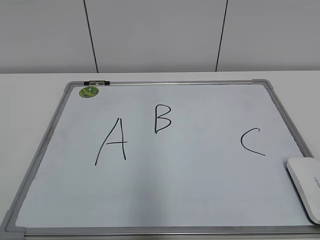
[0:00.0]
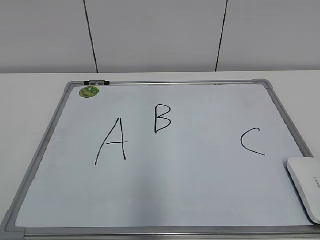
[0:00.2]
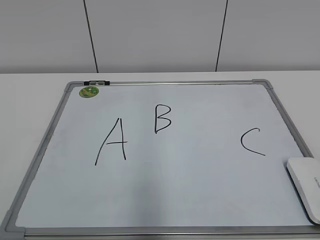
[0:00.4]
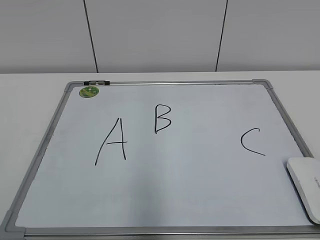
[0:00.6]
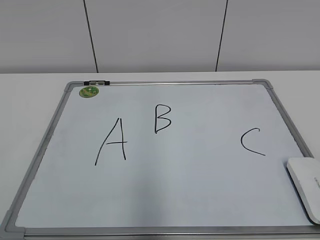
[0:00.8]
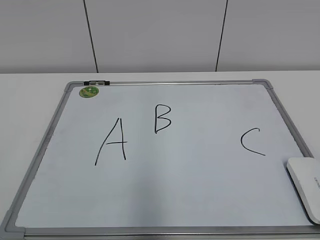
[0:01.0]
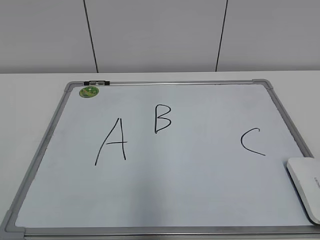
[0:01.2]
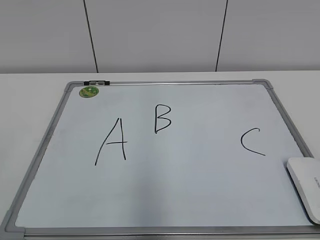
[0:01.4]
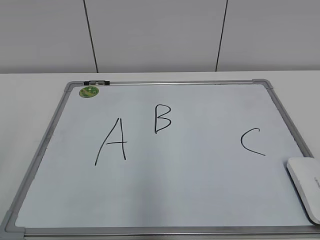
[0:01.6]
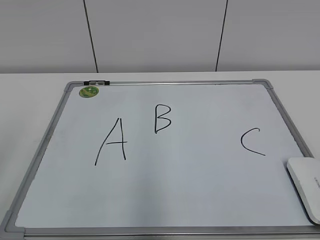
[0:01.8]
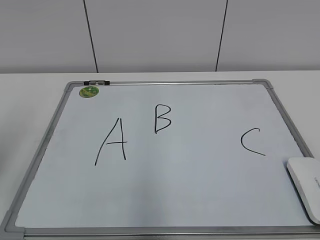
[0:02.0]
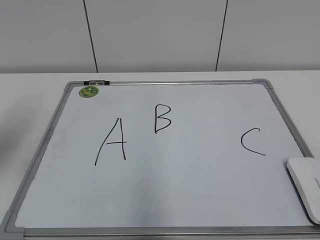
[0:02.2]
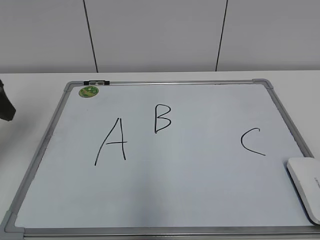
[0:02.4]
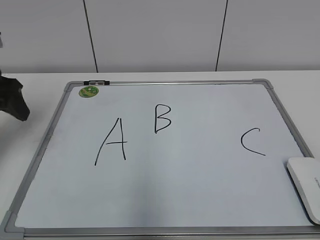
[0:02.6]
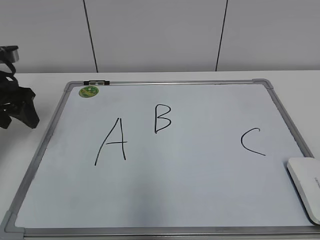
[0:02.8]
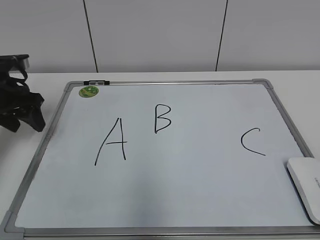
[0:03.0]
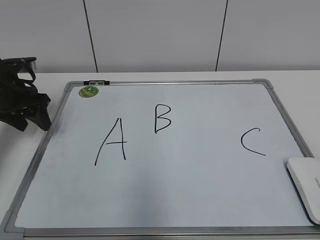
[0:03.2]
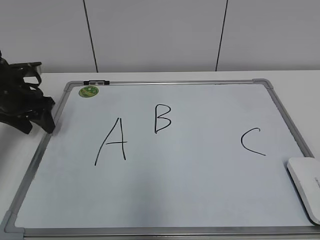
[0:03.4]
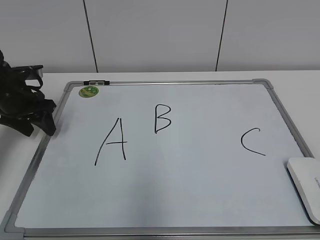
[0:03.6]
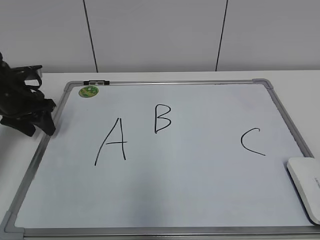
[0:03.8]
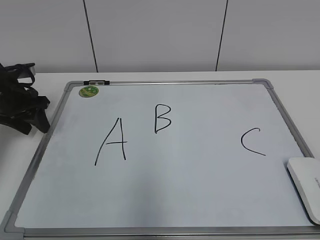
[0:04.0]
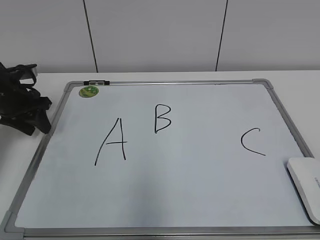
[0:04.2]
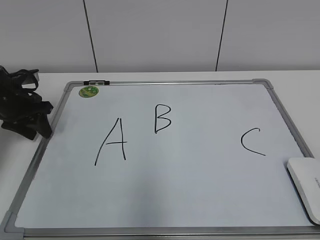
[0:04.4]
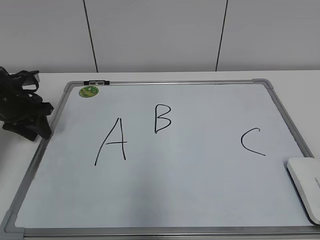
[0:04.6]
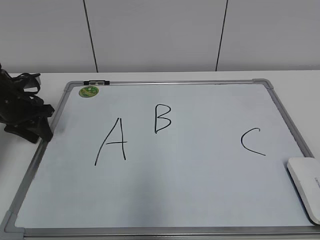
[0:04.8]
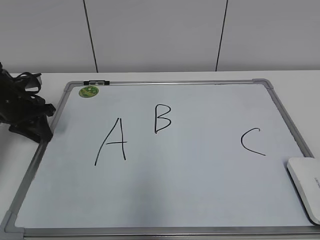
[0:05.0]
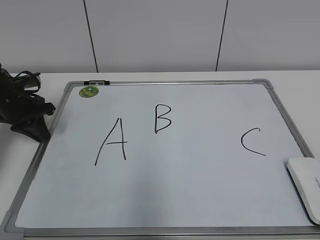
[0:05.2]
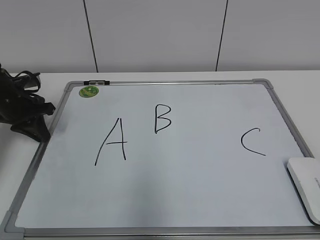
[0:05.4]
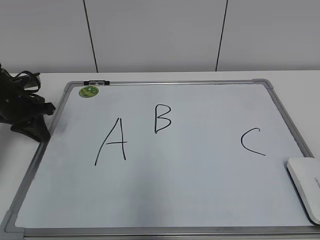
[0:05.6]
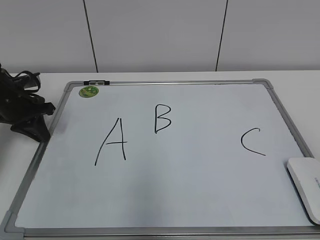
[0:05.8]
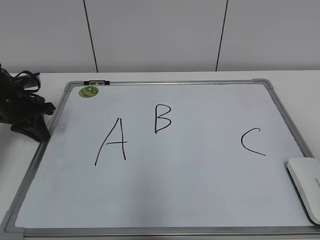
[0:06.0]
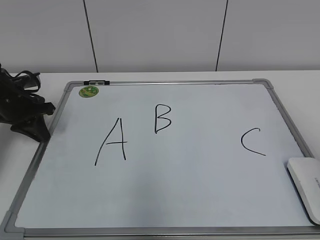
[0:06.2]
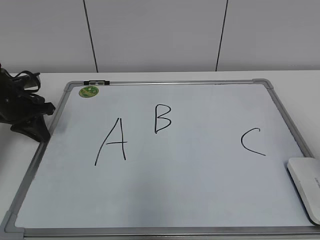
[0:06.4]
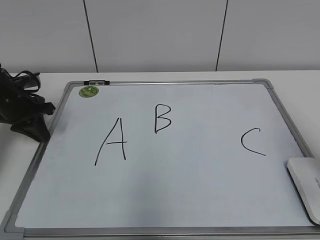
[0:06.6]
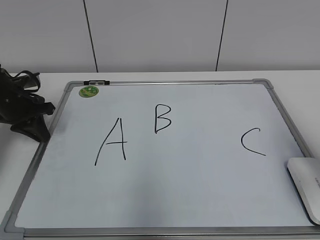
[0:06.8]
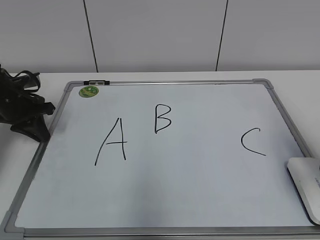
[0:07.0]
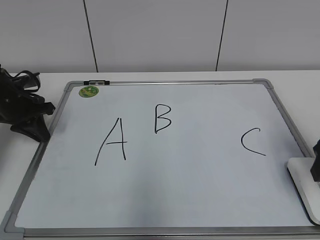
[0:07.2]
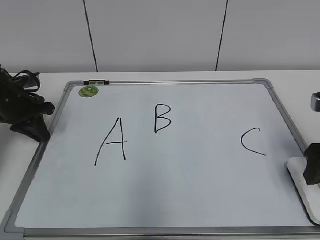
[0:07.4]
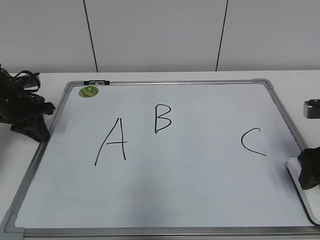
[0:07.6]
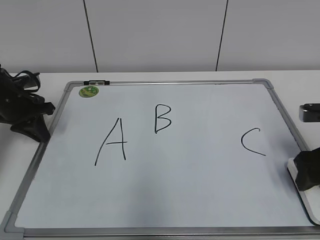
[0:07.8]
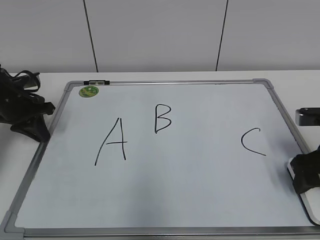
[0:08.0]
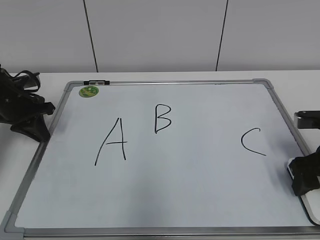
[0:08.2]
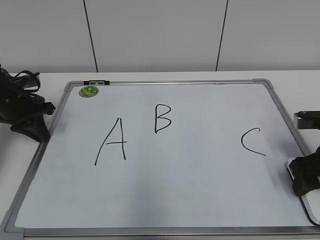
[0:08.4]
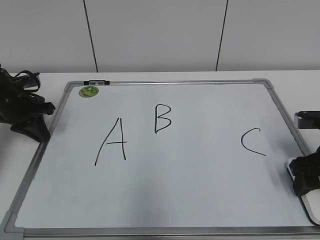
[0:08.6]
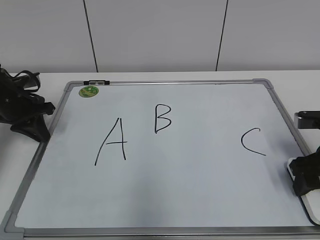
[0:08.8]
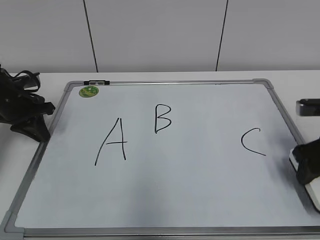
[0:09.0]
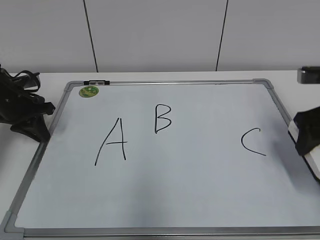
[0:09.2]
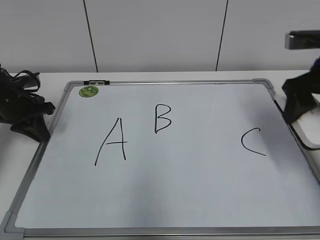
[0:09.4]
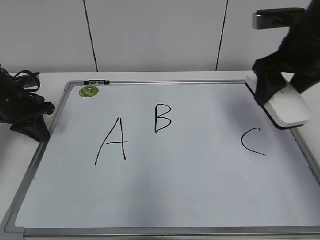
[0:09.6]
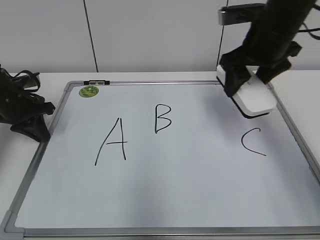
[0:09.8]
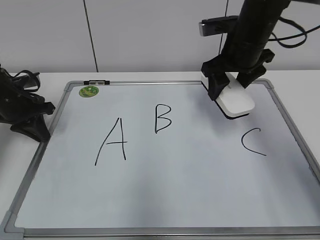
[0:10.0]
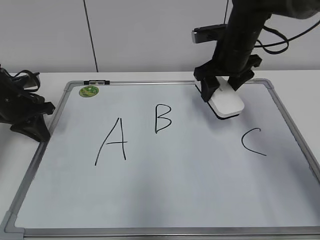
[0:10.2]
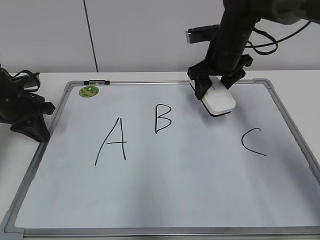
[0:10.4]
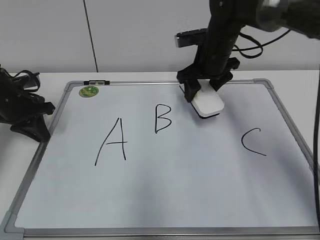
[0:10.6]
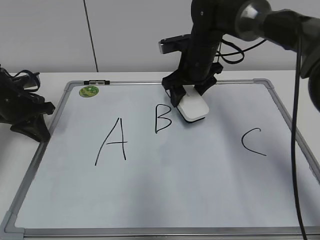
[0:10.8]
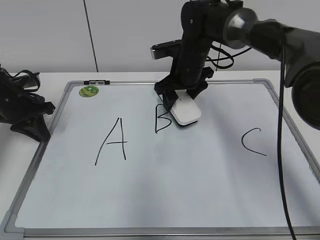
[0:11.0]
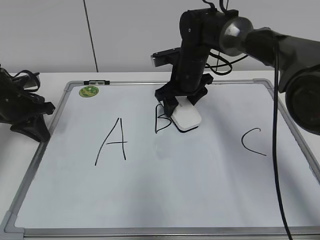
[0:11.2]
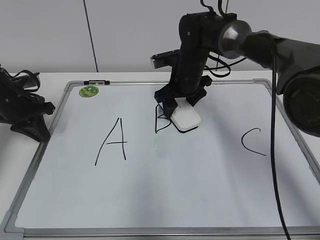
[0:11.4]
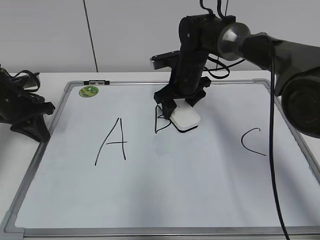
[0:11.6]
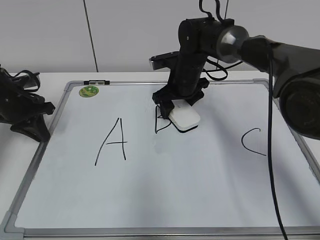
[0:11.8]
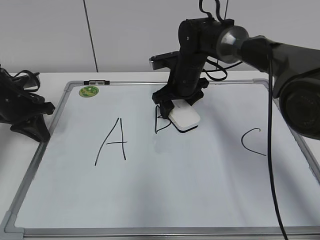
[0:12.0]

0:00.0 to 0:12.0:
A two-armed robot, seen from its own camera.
Task of the whole recording: pick up the eraser on the blackboard and erase the letter "B".
Step, 0:00.0 to 0:05.0: Hold the drawing board steady with your left hand.
0:01.6 to 0:03.0: The left gripper heads forward, covering approximately 30 cm.
0:03.0 to 0:04.4: The left gripper heads downward, covering about 5 cm.
0:04.4 to 0:06.0: The left gripper closes its fingers.
0:06.0 to 0:07.6: The right gripper travels forward and downward by some 25 cm.
0:07.6 to 0:09.0: The grippers move only a little.
0:09.0 to 0:10.4: The right gripper travels forward and to the left by approximately 25 cm.
0:10.4 to 0:12.0: The right gripper goes roughly 10 cm downward and to the left.

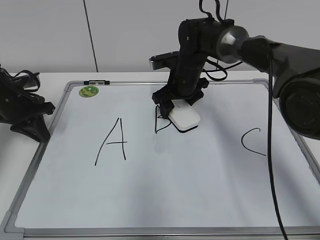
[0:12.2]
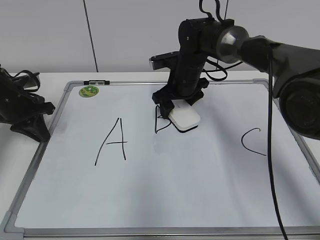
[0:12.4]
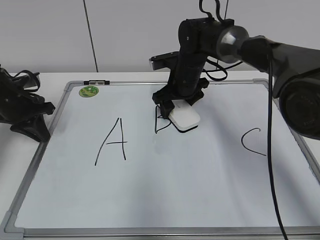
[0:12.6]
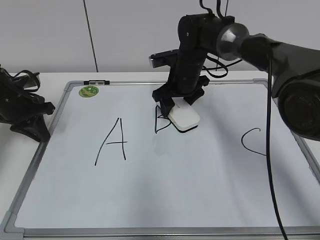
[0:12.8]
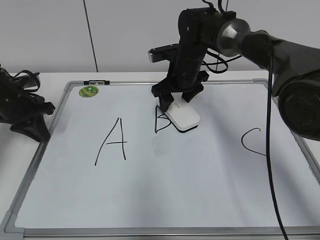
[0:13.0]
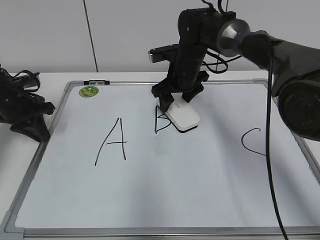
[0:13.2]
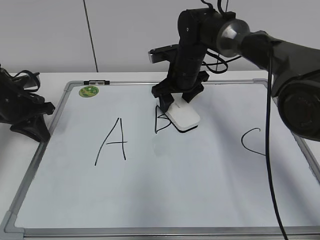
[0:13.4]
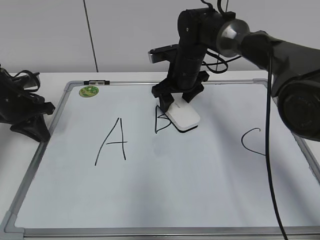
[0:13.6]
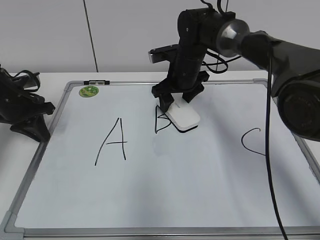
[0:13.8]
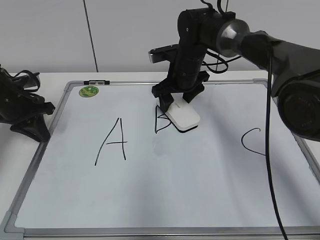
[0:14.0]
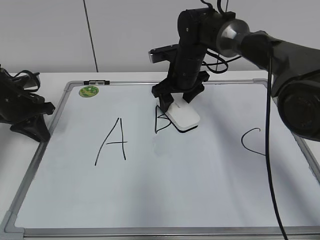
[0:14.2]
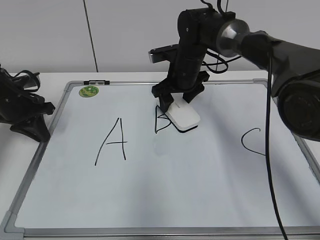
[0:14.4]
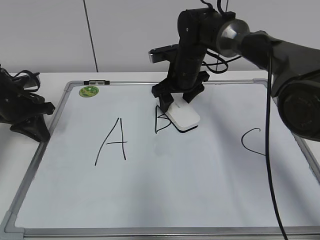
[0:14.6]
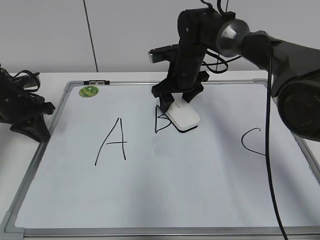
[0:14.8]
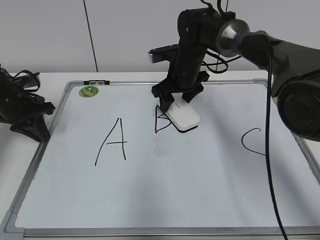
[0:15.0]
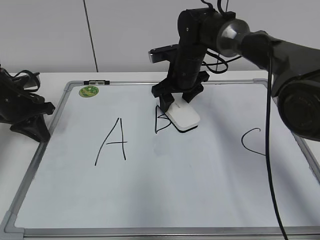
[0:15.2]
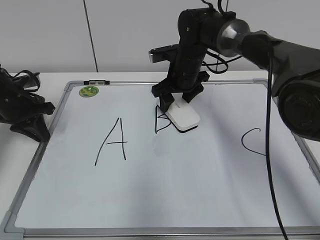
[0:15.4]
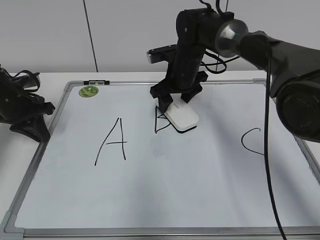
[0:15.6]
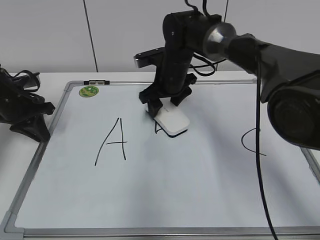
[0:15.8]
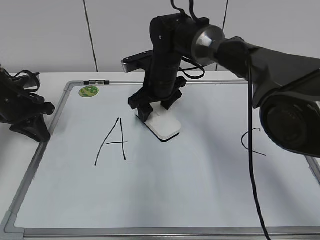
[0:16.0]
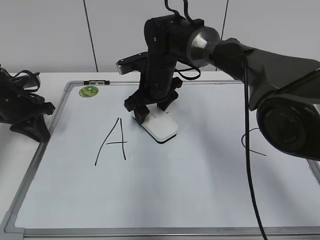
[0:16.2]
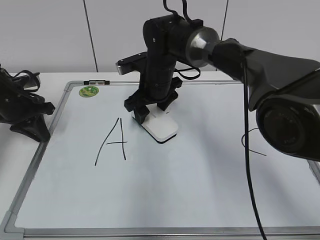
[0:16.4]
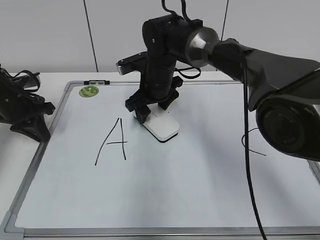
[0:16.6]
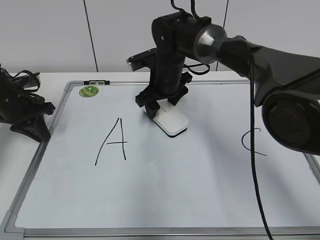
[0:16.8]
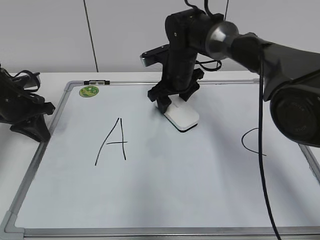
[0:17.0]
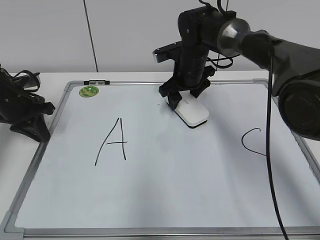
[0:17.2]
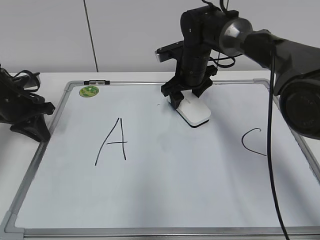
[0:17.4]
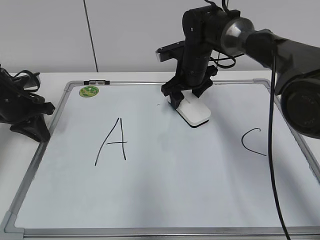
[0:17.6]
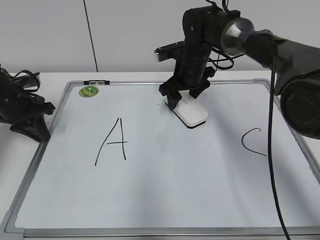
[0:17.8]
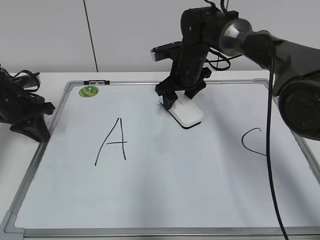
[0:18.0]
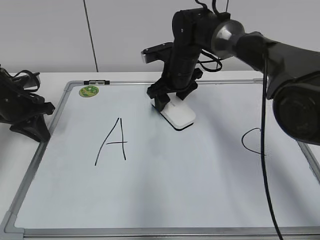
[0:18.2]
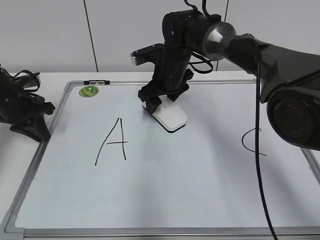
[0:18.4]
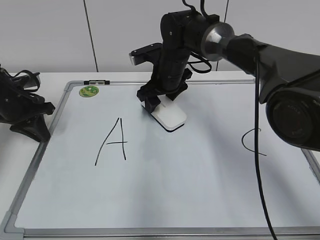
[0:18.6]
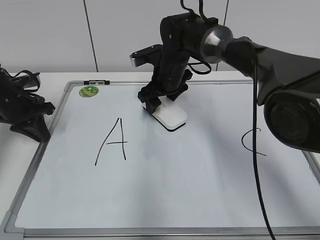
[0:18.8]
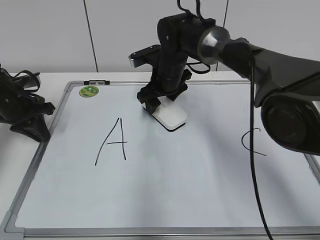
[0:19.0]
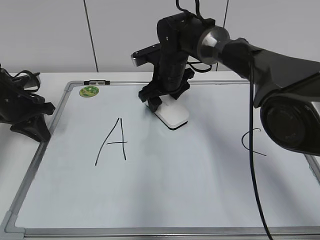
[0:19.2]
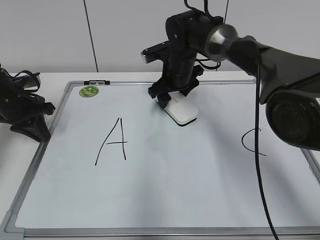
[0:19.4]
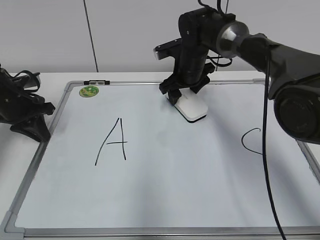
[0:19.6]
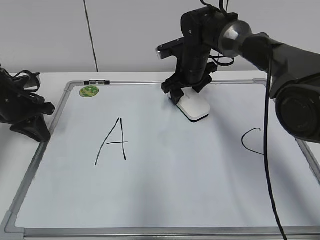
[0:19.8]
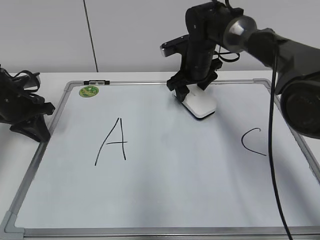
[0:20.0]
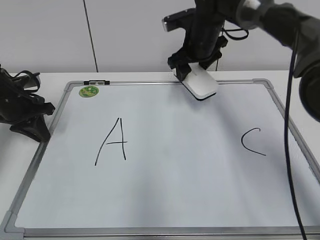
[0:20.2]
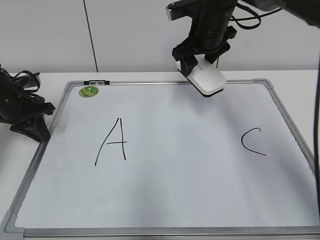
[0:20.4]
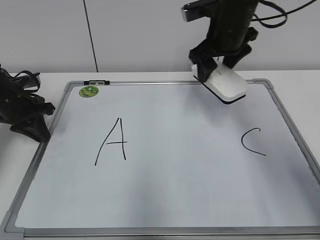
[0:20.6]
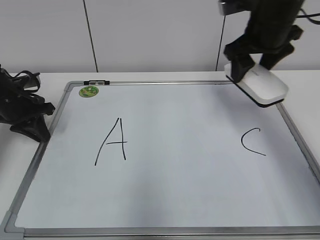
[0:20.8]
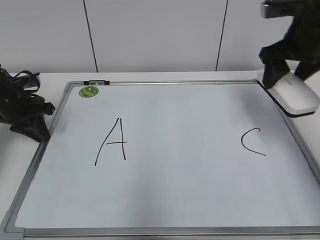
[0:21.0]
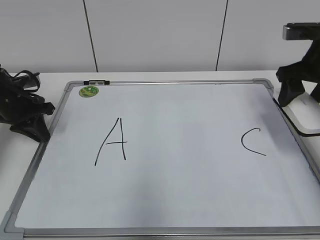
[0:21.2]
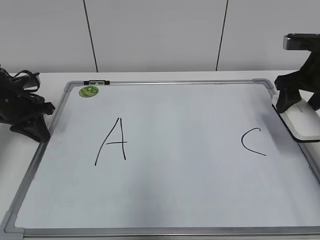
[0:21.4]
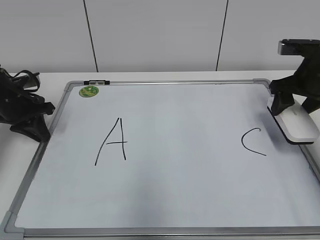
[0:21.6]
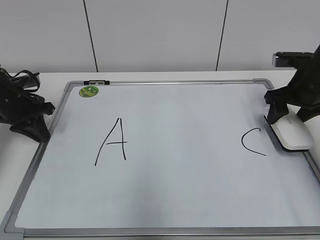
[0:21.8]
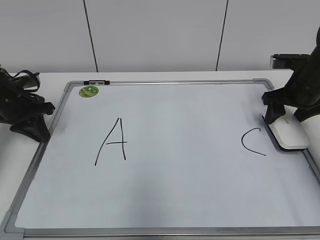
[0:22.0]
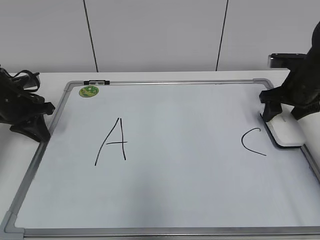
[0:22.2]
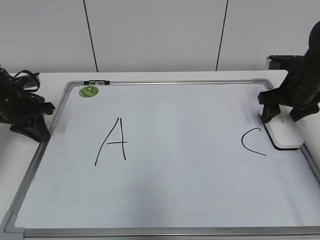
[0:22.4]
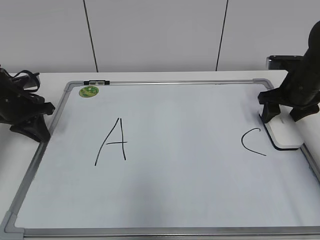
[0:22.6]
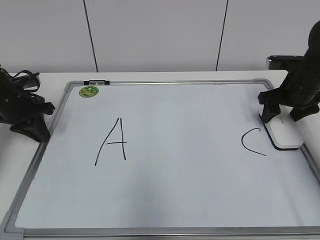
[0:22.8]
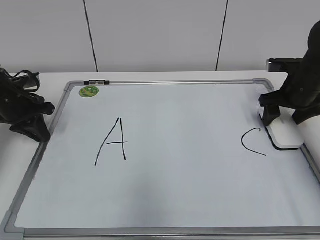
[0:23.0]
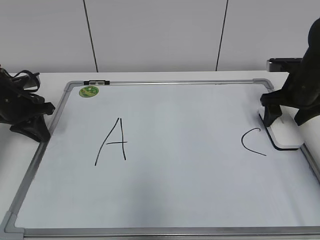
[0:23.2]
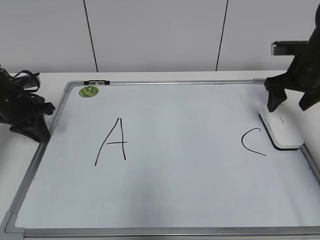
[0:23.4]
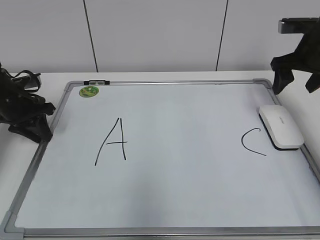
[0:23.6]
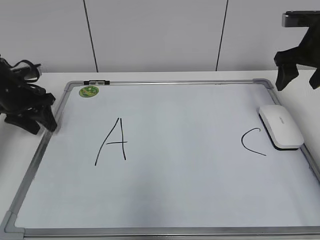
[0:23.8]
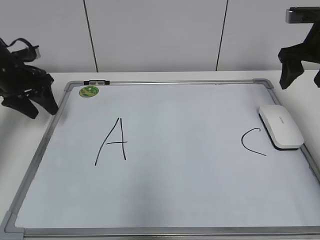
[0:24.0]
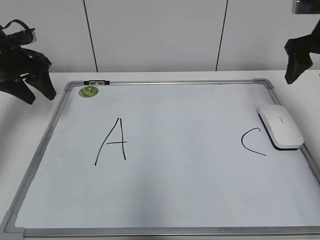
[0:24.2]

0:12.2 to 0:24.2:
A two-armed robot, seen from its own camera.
Task of the whole recording: pick up the eraser on the blackboard and erase the letter "B".
Step, 0:12.2 to 0:19.6: Erase the letter B with your right hand.
Step, 0:19.8 to 0:23.0: Put down the eraser with your right hand.
0:12.2 to 0:13.8: The grippers move only a little.
0:13.8 to 0:15.2: The two grippers keep their place.
0:15.2 to 0:16.6: The right gripper goes roughly 5 cm to the left.
0:16.6 to 0:18.2: The right gripper shifts by approximately 5 cm.
0:18.2 to 0:19.8: There are only small adjustments of the grippers.
0:19.8 to 0:21.2: The right gripper heads to the right, backward and upward, covering roughly 25 cm.
0:21.2 to 0:22.6: The right gripper goes roughly 10 cm downward.
0:22.6 to 0:24.2: The left gripper is displaced upward by approximately 10 cm, and opens its fingers. The right gripper moves upward, some 15 cm.
